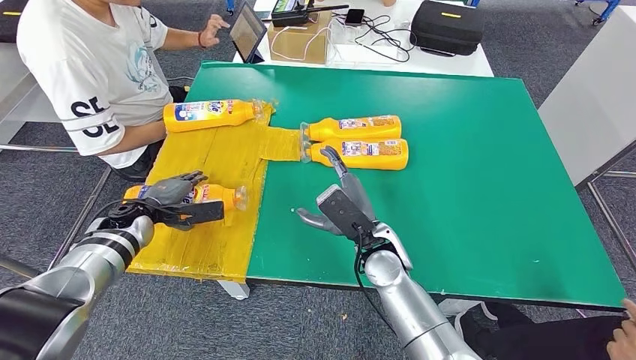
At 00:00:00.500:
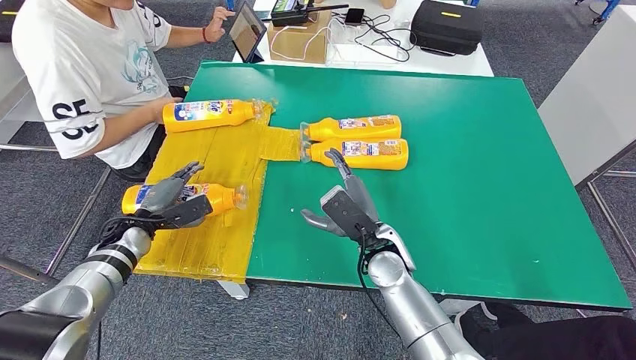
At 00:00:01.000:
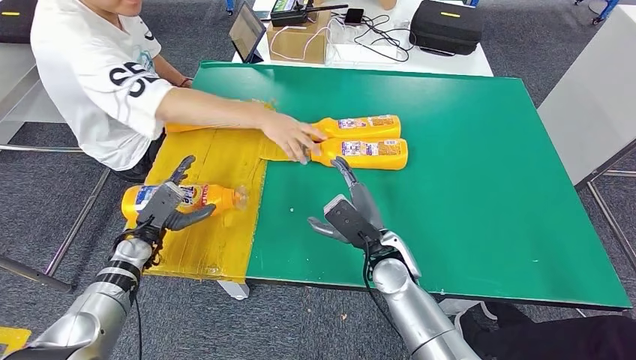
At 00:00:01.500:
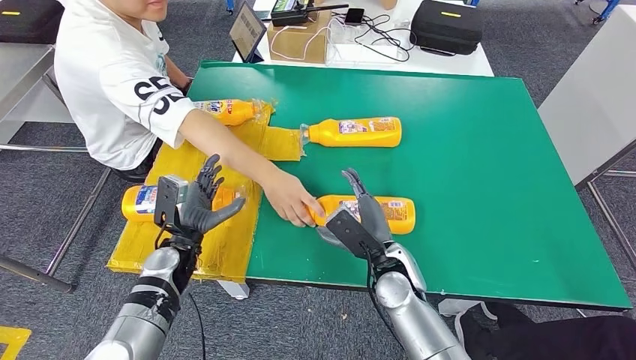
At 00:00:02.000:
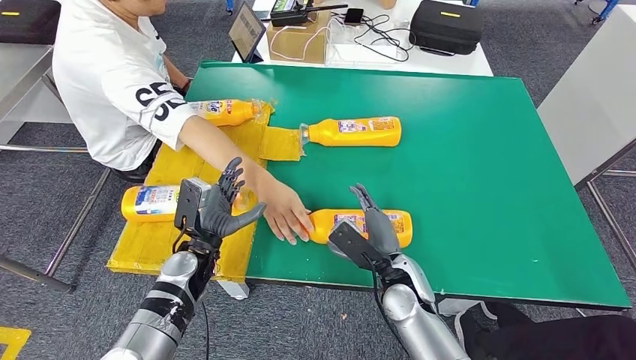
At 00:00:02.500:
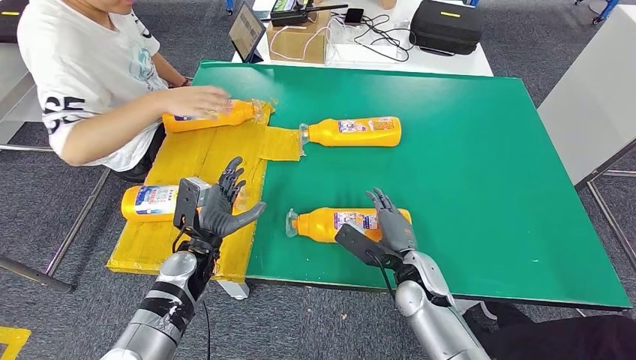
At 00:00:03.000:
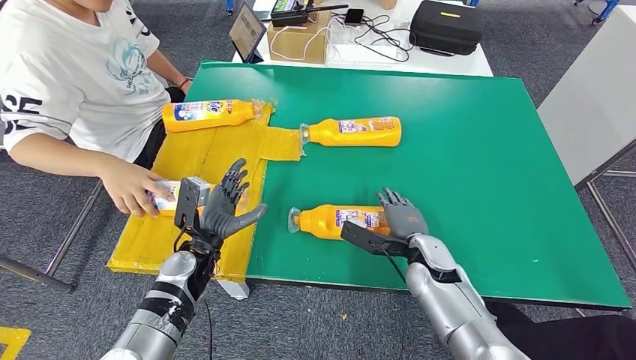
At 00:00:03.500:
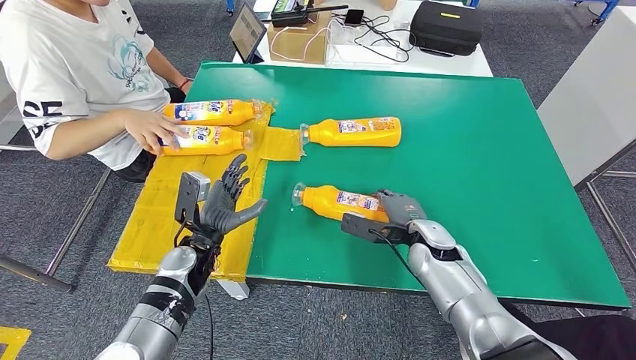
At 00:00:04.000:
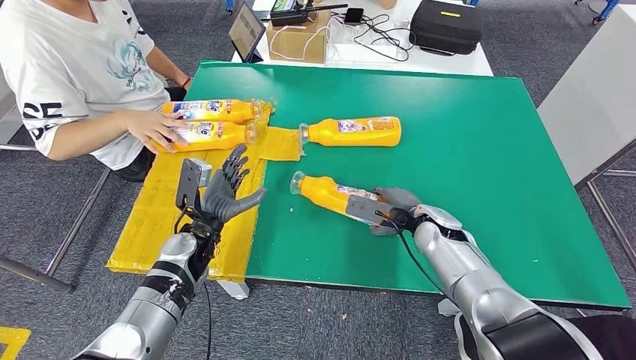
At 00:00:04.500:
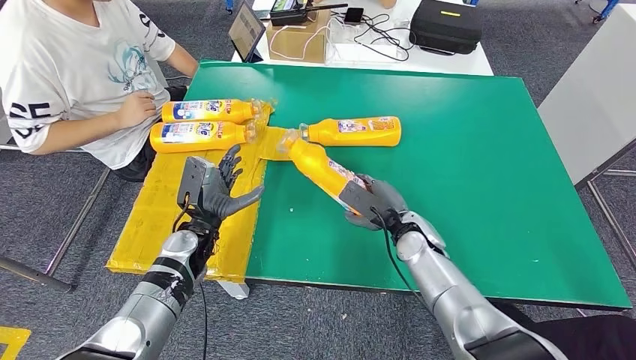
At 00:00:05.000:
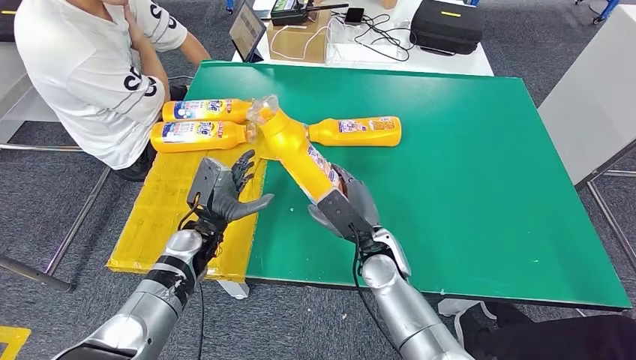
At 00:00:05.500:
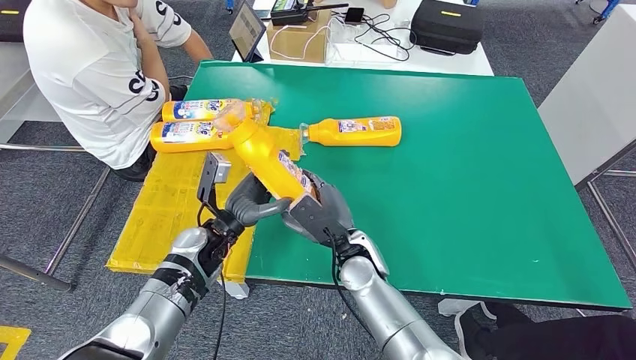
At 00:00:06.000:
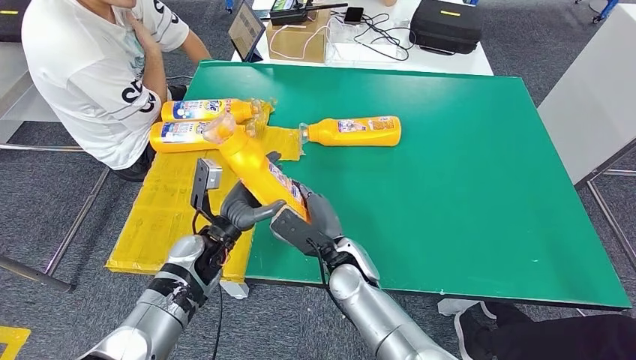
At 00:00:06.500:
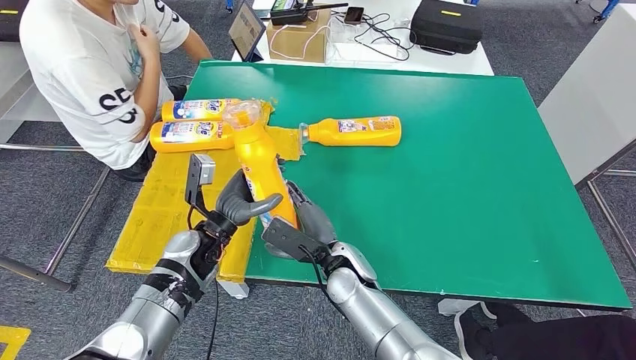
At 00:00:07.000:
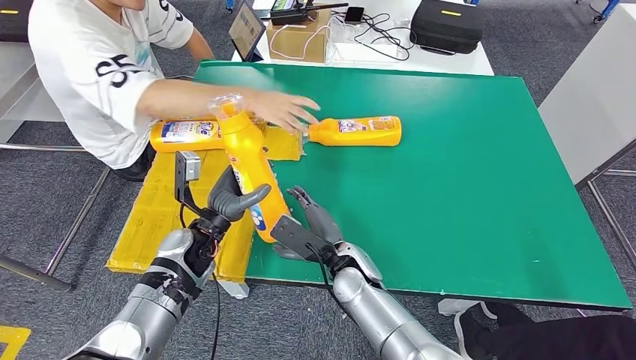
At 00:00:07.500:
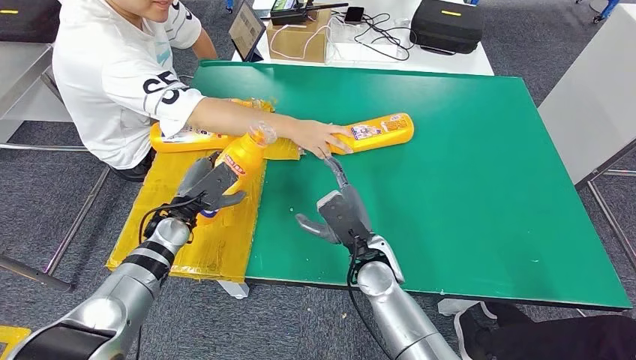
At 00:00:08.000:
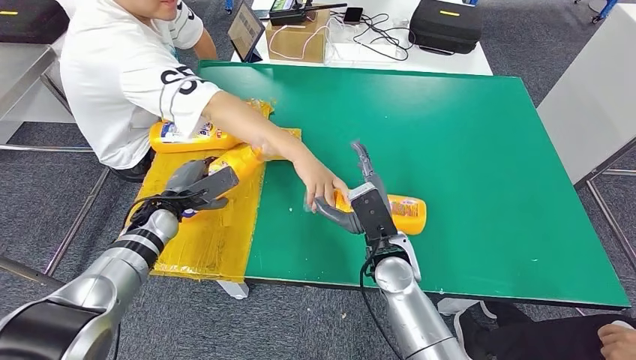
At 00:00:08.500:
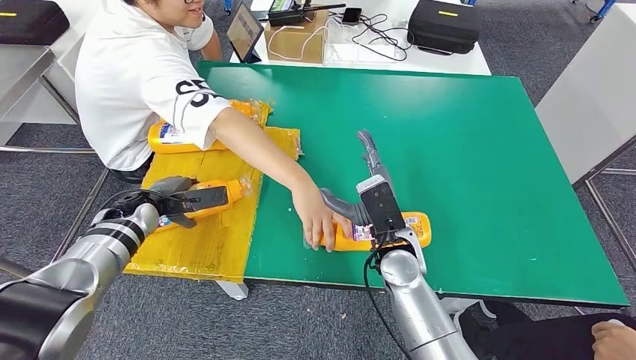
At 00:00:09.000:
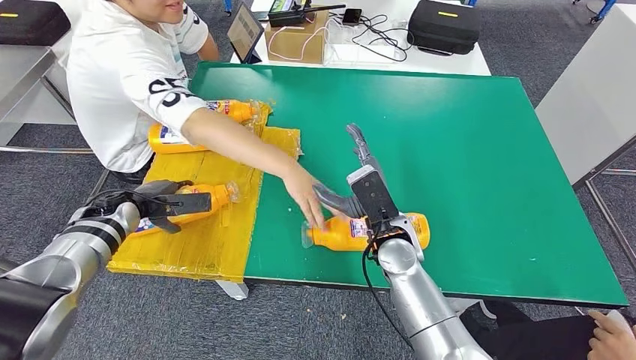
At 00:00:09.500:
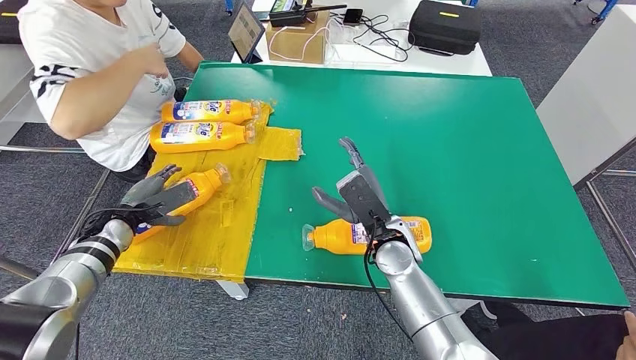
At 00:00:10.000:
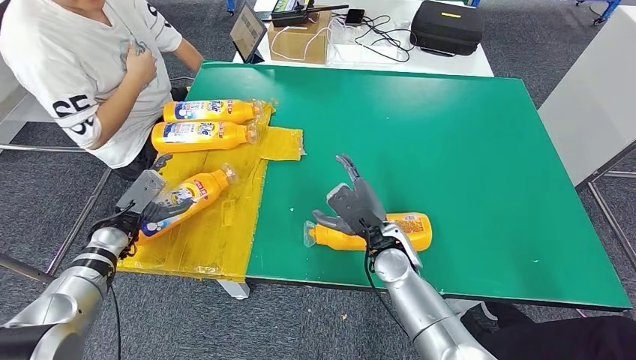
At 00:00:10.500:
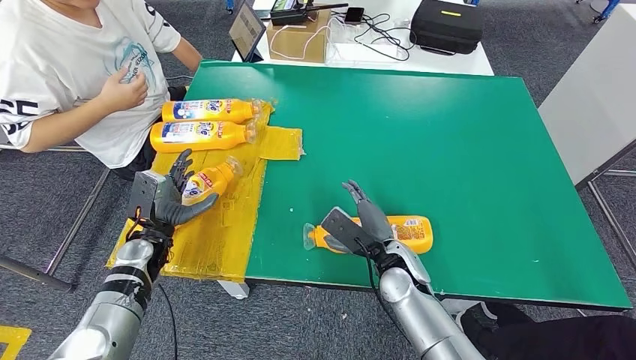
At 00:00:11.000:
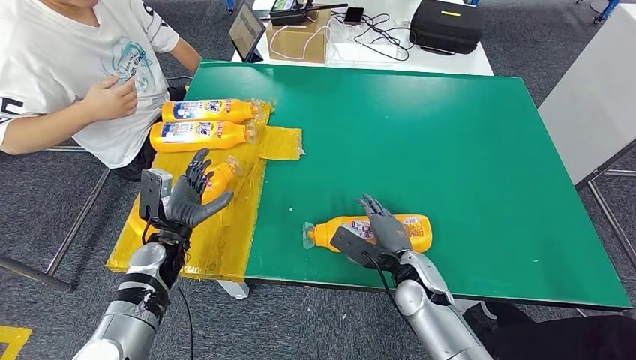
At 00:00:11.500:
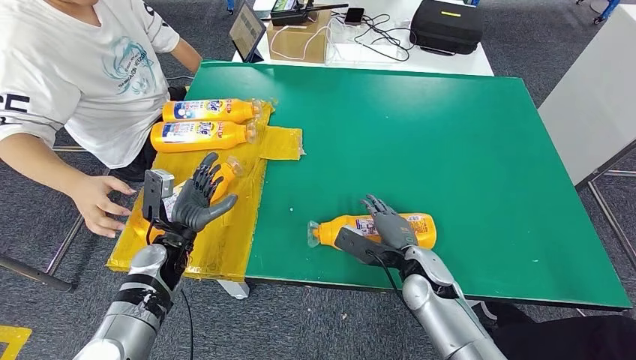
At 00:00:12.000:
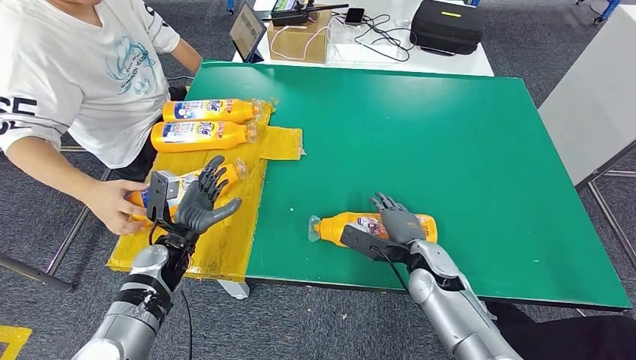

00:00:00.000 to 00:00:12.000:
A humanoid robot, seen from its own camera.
Step, 00:00:03.500 to 00:00:04.500: Pick up the fast-moving consumer goods bottle from the table.
Step, 00:00:05.500 to 00:00:09.500: Flip the fast-moving consumer goods bottle to the front side.

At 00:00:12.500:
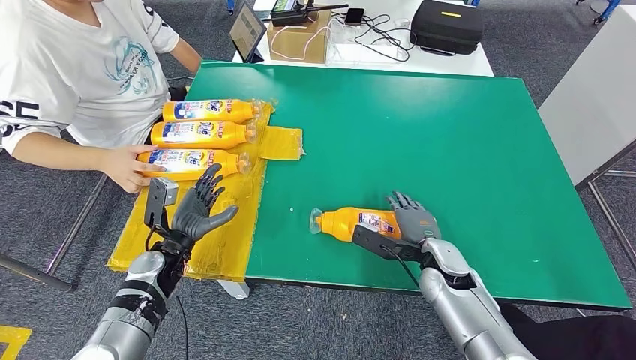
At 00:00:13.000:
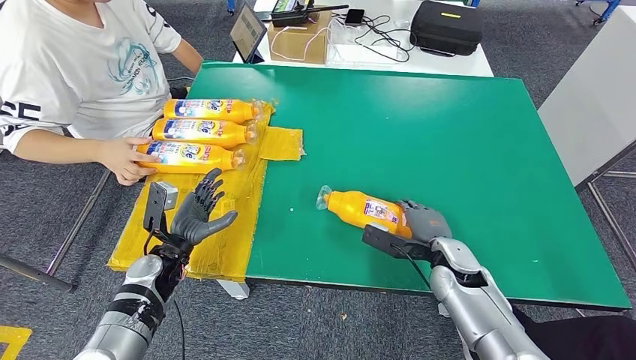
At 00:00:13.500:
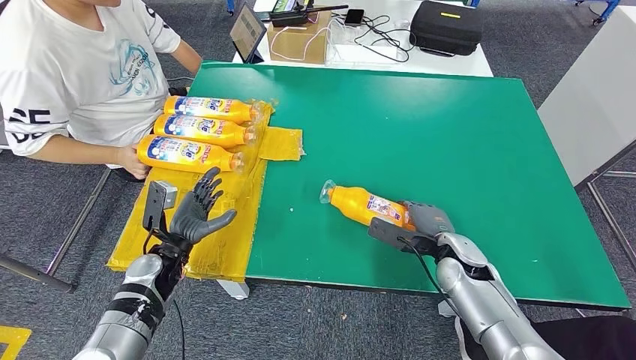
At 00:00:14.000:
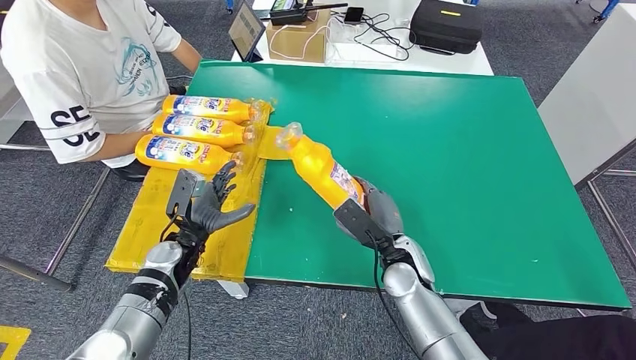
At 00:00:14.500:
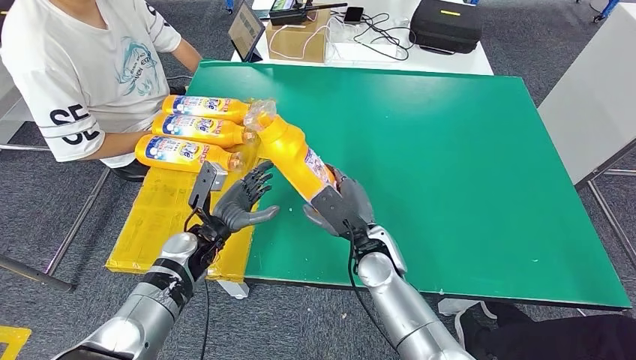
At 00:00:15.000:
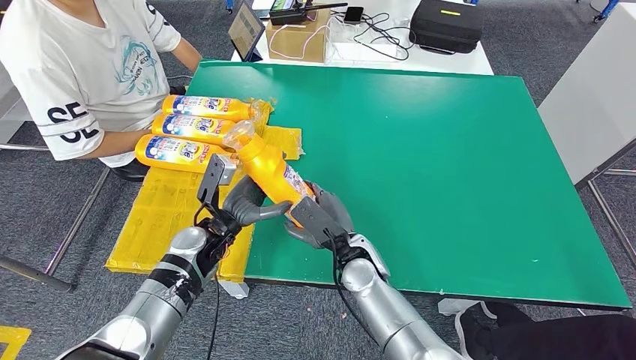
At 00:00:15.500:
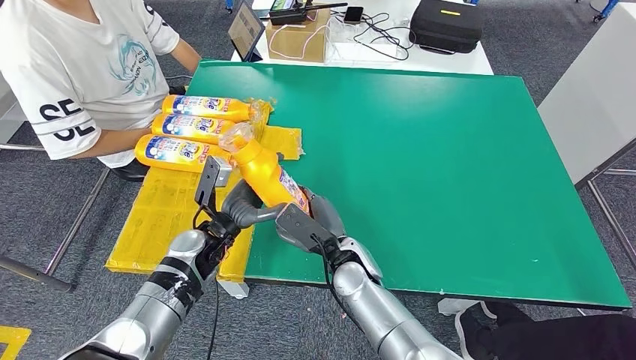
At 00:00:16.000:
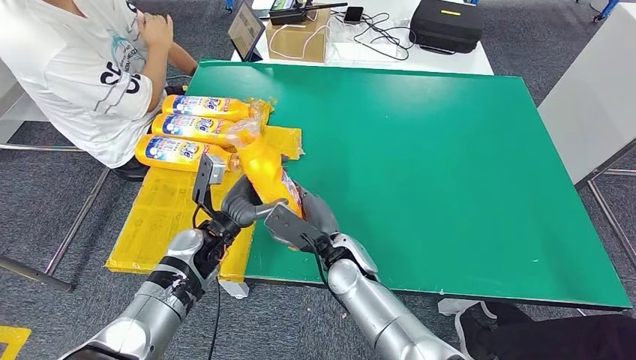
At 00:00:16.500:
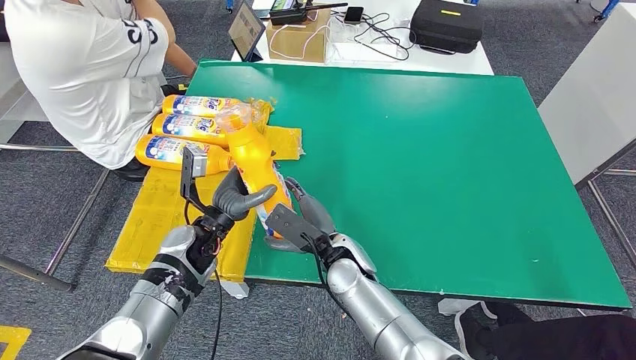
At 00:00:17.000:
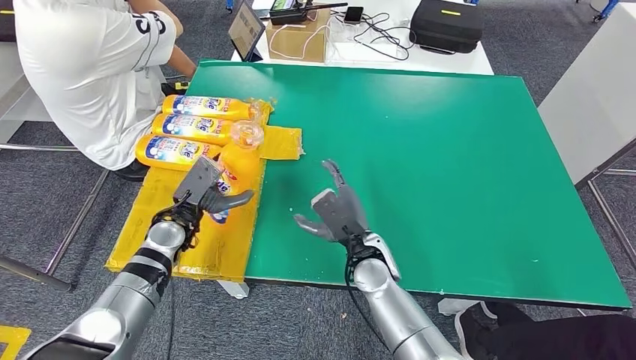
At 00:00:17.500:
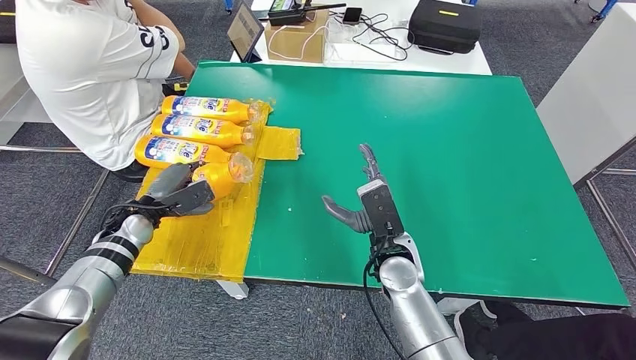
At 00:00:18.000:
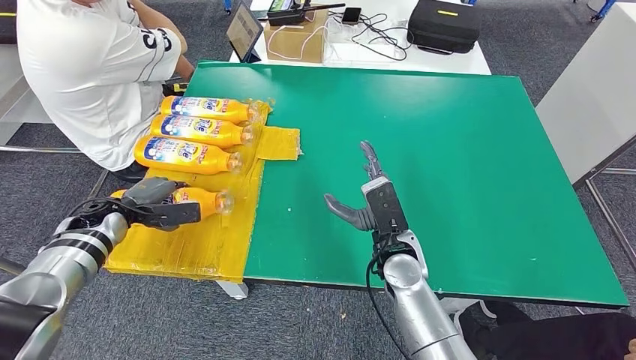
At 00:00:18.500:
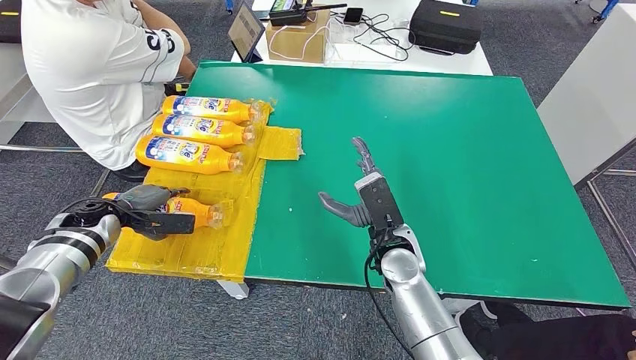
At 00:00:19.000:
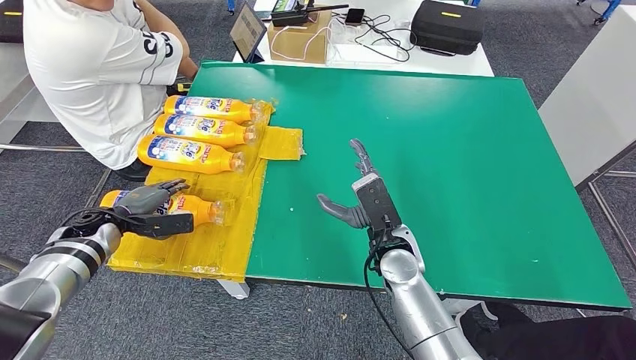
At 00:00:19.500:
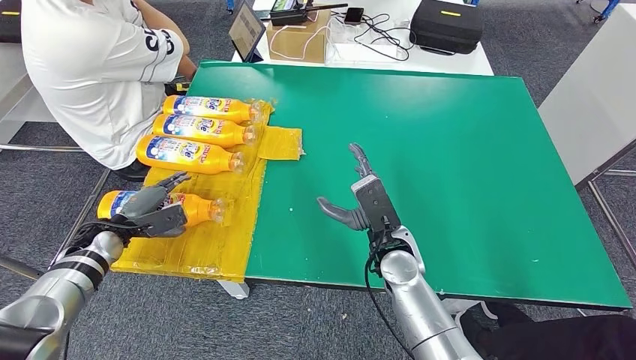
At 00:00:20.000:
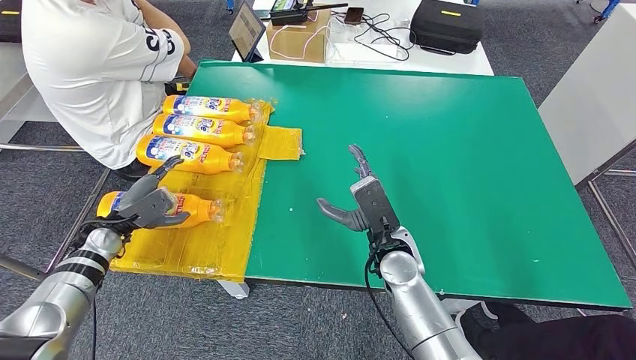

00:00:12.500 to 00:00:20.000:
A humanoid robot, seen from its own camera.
Step, 00:00:12.500 to 00:00:15.000: Pick up the fast-moving consumer goods bottle from the table.
Step, 00:00:16.500 to 00:00:20.000: Flip the fast-moving consumer goods bottle to the front side.
00:00:14.500 to 00:00:16.500: The right hand heads to the left, covering approximately 5 cm.
